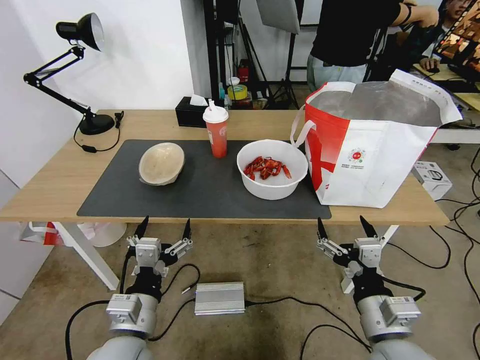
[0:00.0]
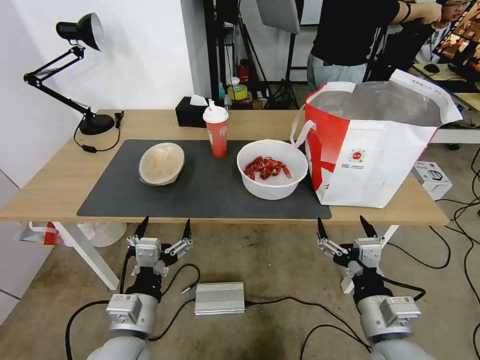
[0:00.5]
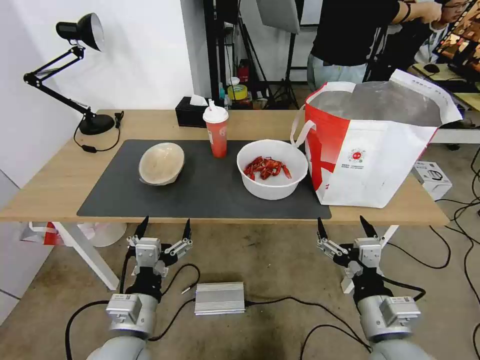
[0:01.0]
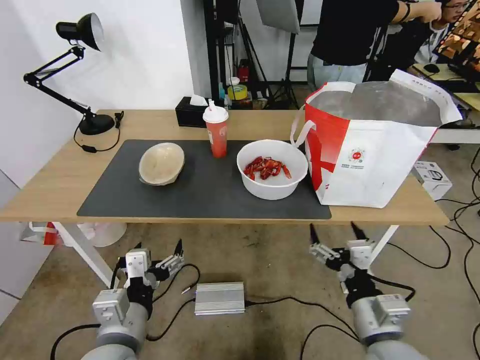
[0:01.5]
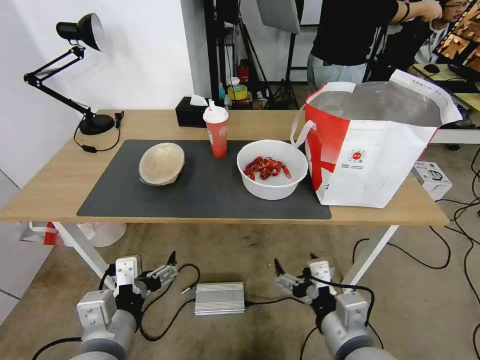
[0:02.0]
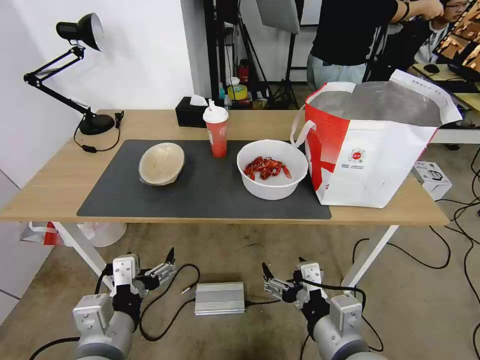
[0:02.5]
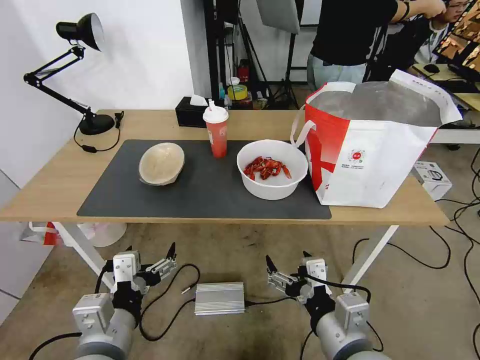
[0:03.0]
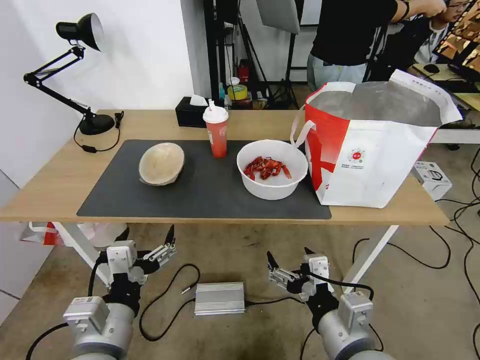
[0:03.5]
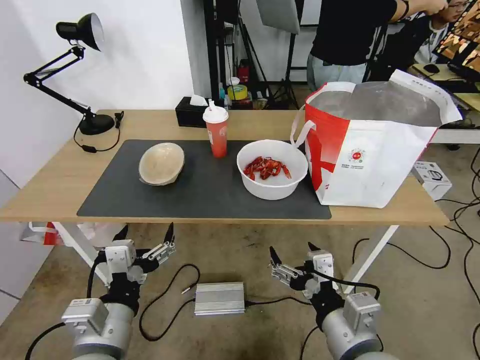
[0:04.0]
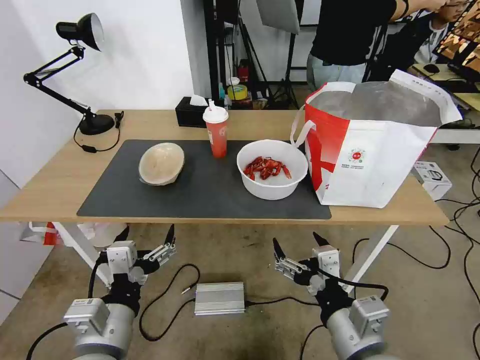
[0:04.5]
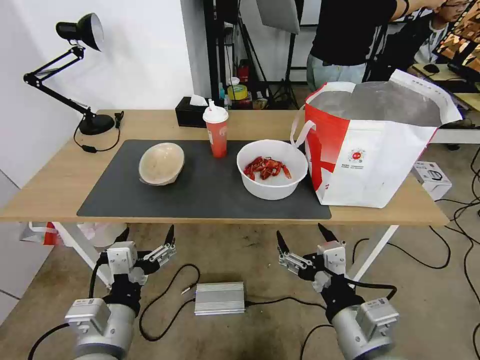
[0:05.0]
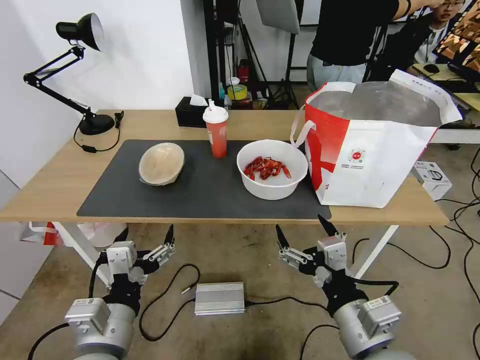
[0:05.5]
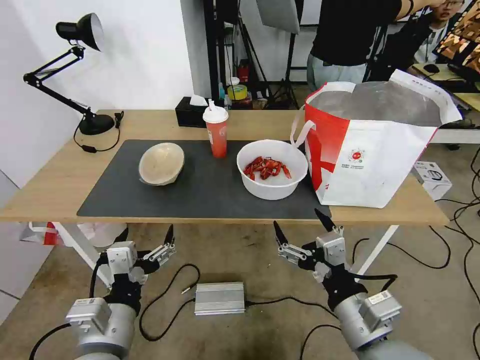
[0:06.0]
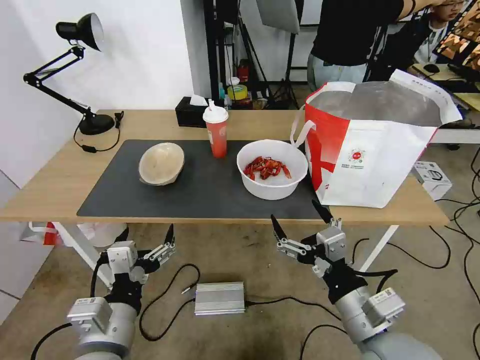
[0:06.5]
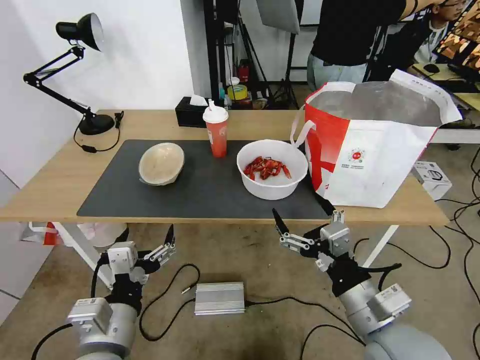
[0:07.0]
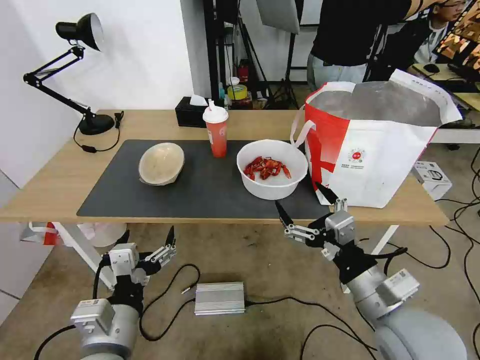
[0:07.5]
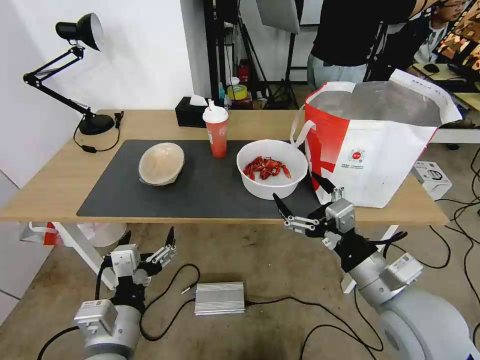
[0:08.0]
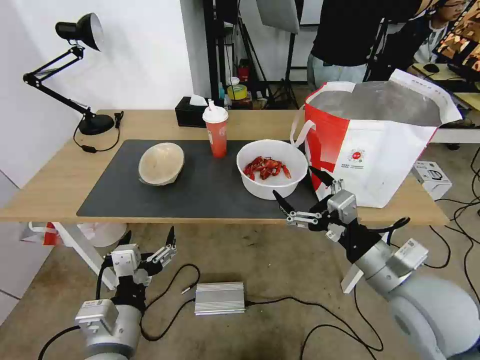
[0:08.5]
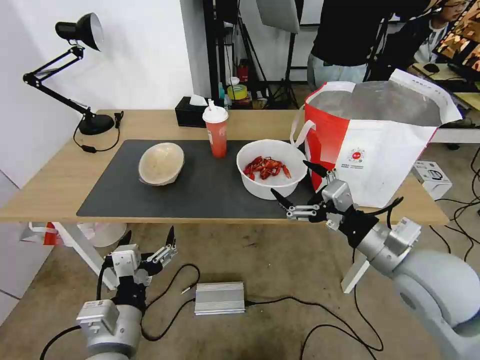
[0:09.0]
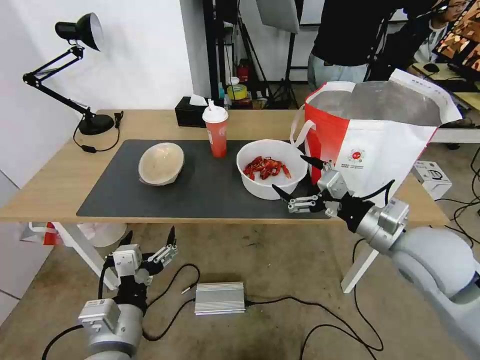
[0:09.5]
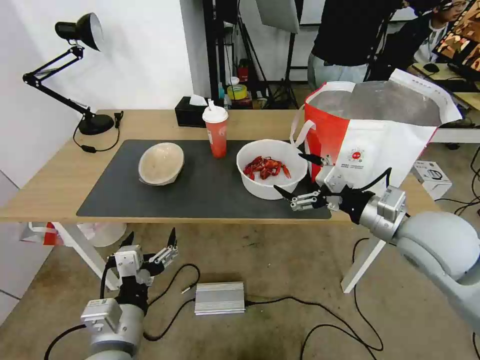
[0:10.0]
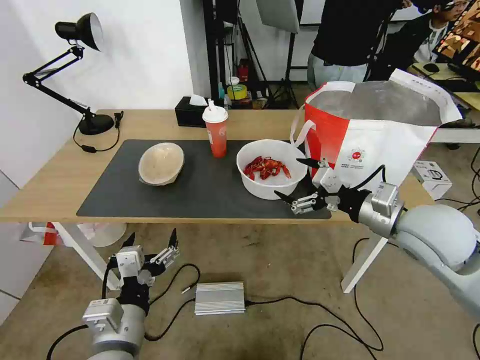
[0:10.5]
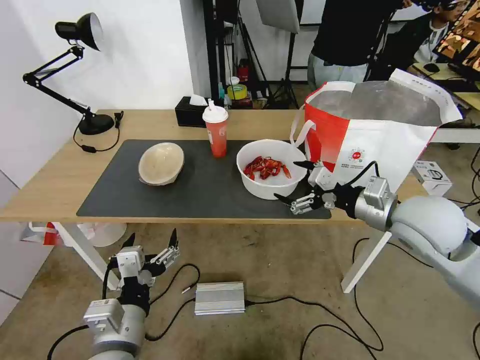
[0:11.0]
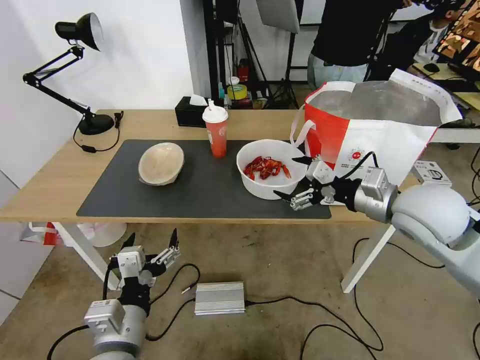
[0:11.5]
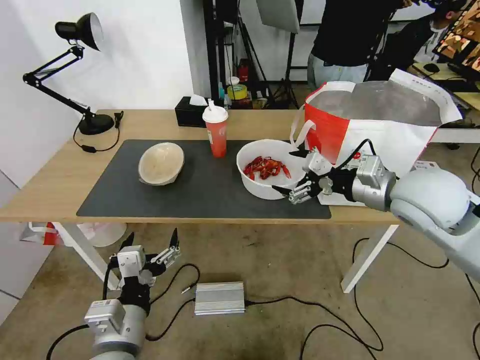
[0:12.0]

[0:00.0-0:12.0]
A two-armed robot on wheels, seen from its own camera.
Task of the whole recording: Pick up the trash from the table and place it into the takeout bag.
0:02.0 to 0:04.0: The grippers stay close to where they were, moving slightly.
0:06.0 to 0:08.0: The right gripper travels forward by about 5 cm.
0:08.0 to 0:10.0: The right gripper goes some 15 cm forward, upward and to the right.
0:10.0 to 0:12.0: The right gripper is displaced forward by some 5 cm.

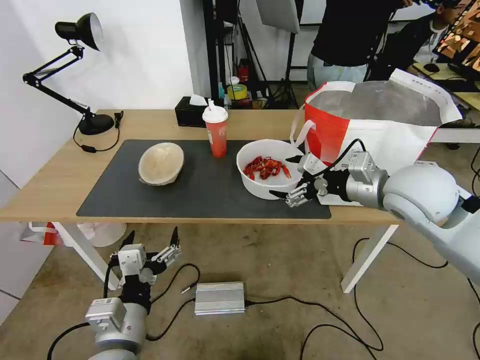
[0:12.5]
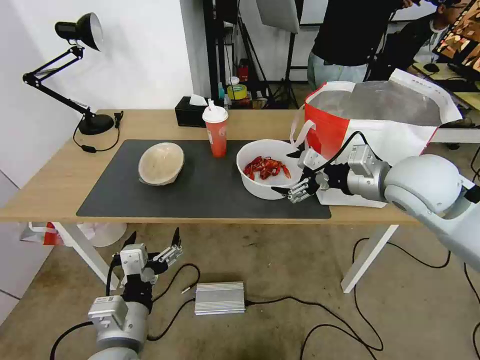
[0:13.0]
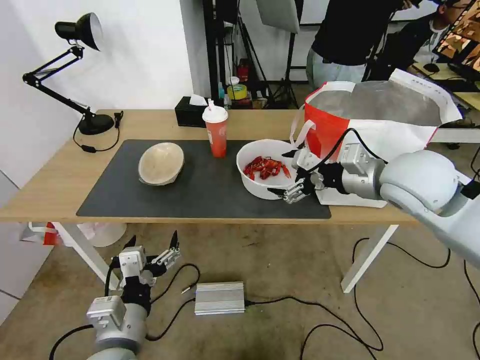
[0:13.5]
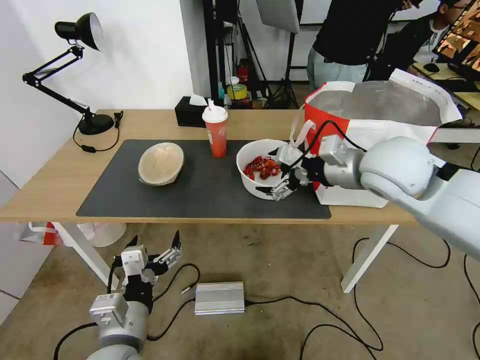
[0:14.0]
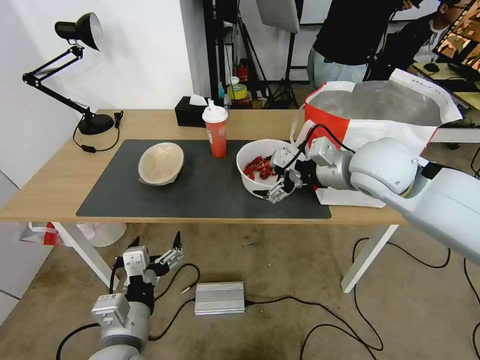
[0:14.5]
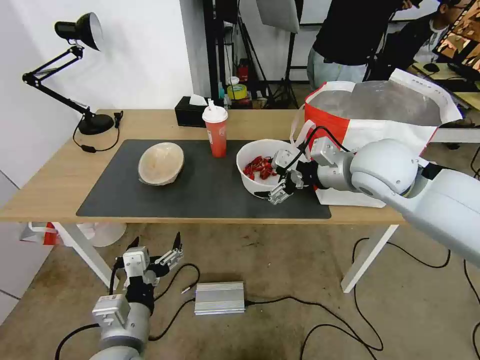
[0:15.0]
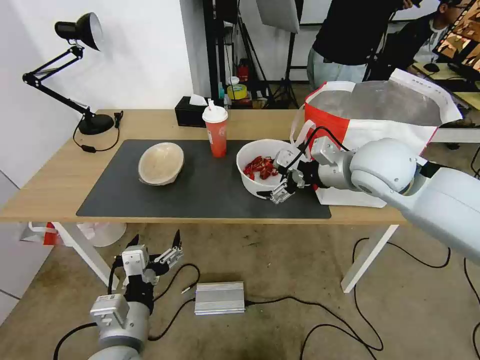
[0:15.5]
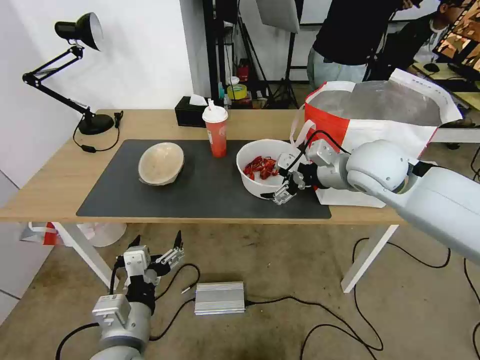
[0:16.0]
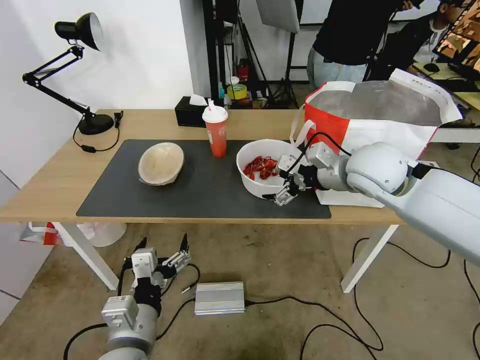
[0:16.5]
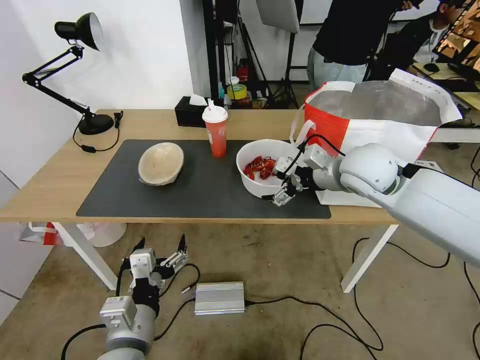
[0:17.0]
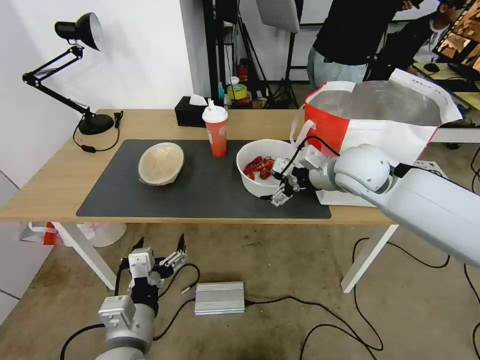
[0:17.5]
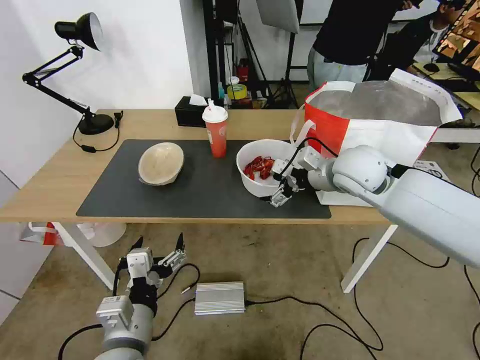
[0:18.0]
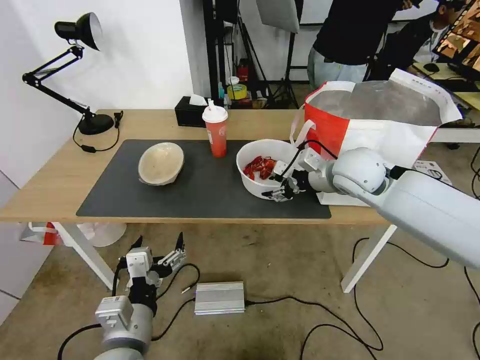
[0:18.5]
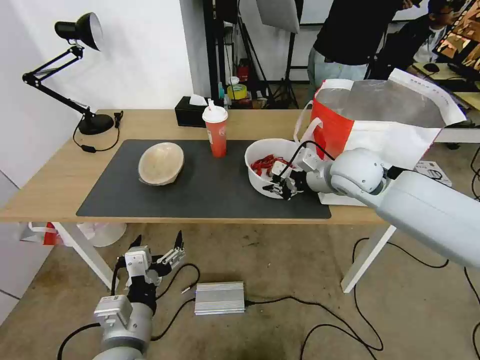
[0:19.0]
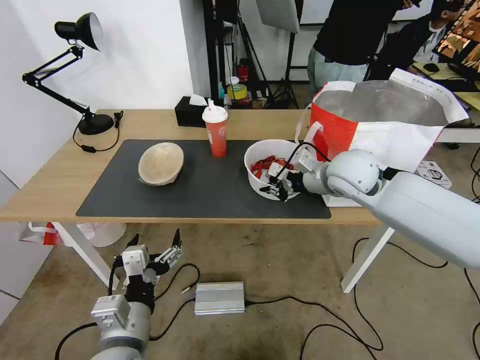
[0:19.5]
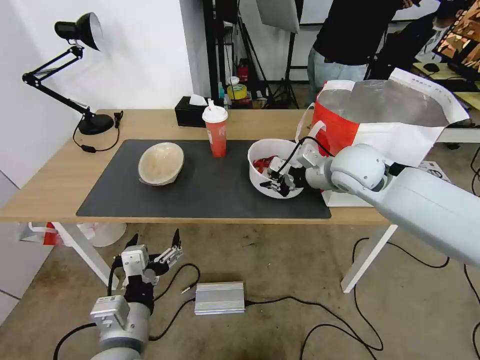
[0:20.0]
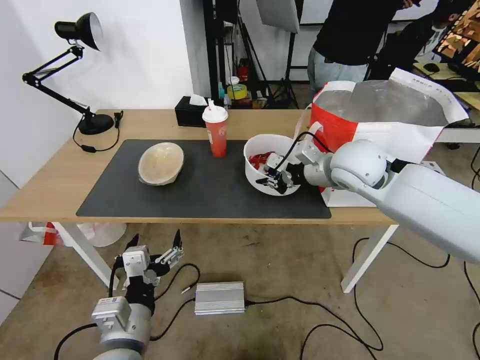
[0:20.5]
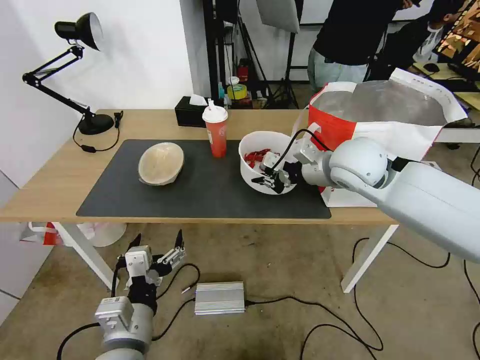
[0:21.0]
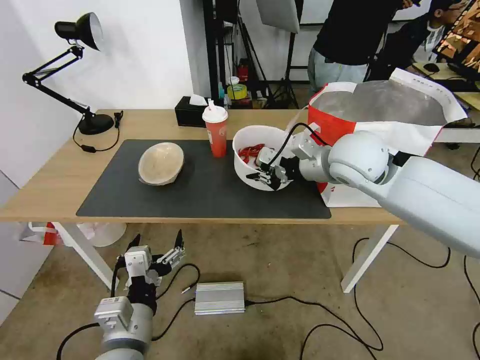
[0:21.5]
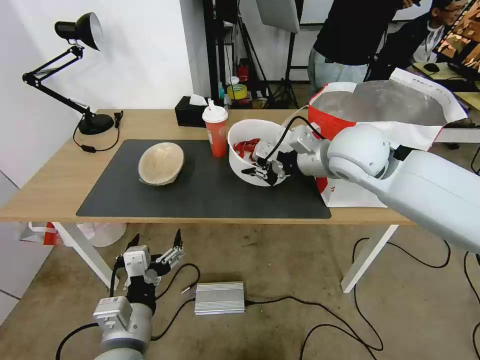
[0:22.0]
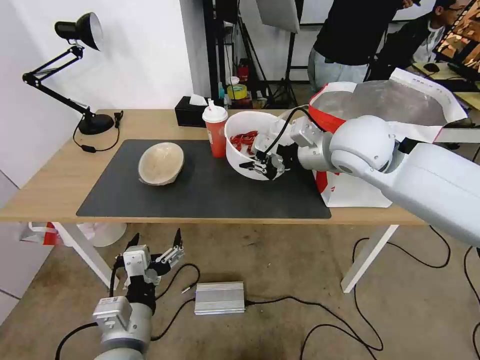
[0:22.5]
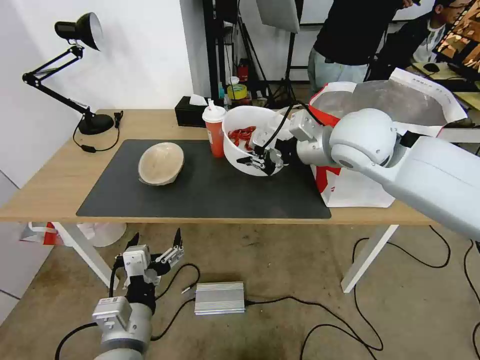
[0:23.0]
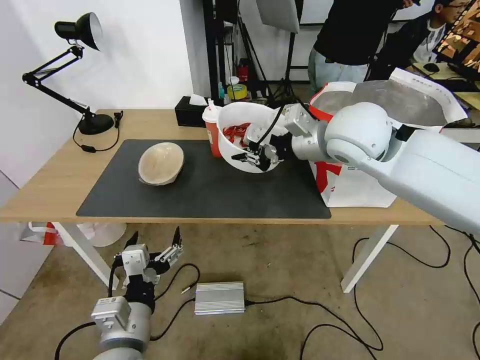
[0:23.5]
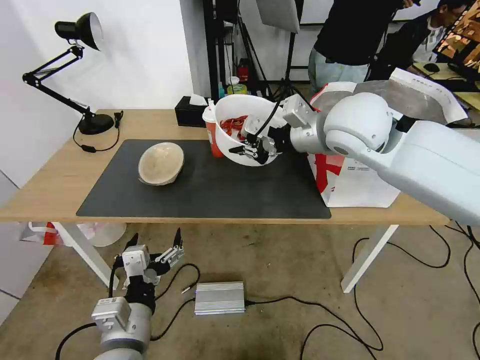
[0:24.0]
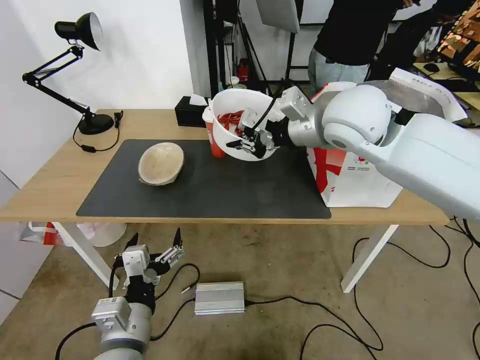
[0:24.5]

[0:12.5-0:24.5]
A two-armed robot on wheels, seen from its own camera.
Task of the whole recording: Pick up the trash from the table and place it into the takeout bag.
0:12.5 to 0:14.5: The right gripper is displaced to the left by some 5 cm.
0:14.5 to 0:16.5: The grippers stay close to where they were, moving slightly.
0:16.5 to 0:18.5: The right gripper closes up.
0:18.5 to 0:20.5: The right gripper closes its fingers.
0:20.5 to 0:22.5: The right gripper is displaced upward by roughly 5 cm.
0:22.5 to 0:24.5: The right gripper changes place by about 5 cm.

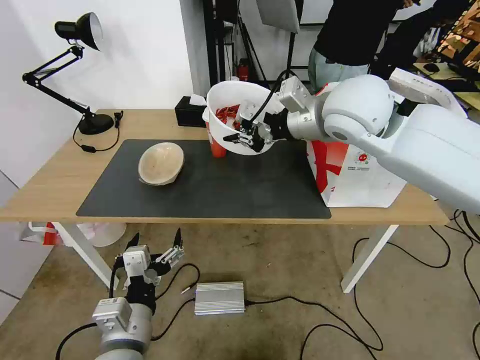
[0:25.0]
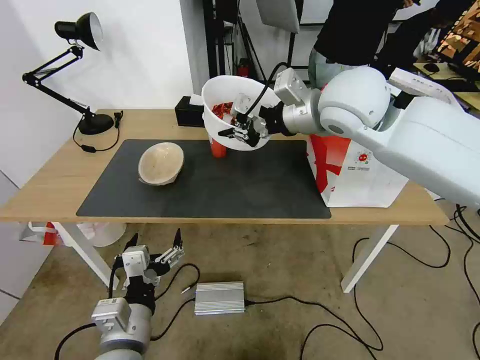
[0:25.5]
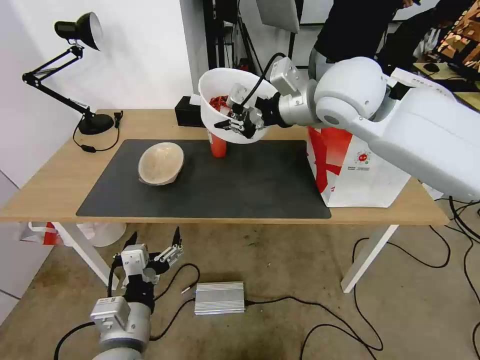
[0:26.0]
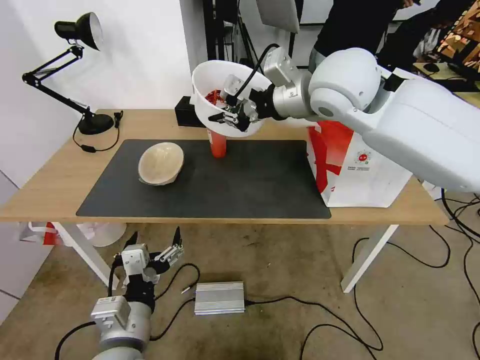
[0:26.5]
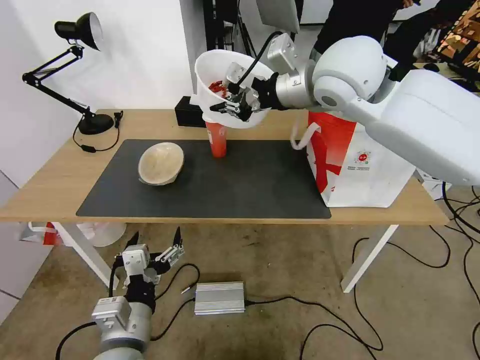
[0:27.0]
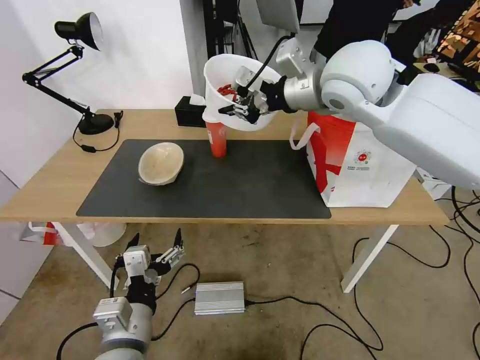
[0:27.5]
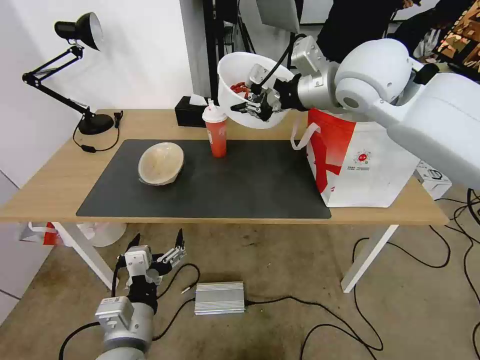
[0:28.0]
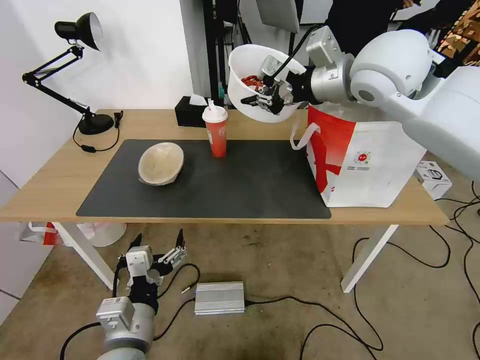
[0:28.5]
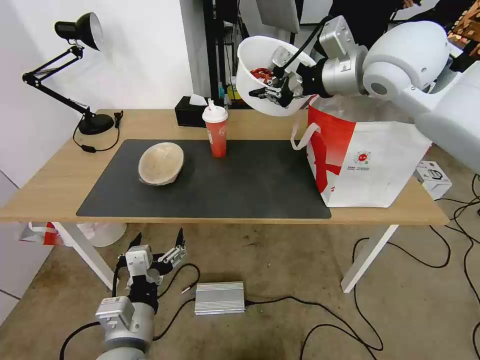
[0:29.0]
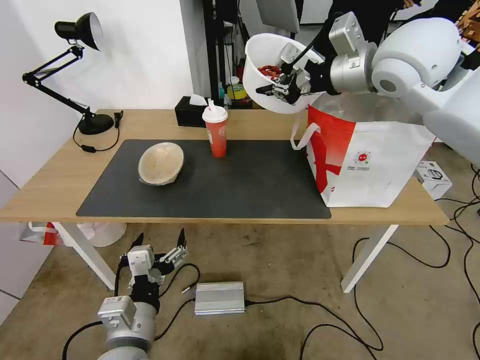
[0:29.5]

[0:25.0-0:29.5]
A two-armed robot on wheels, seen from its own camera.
Task of the whole recording: Pick up the trash from the table and place it into the takeout bag.
0:25.0 to 0:27.0: The right gripper ends up roughly 5 cm from where it was.
0:27.0 to 0:29.5: The right gripper moves to the right, roughly 10 cm.
